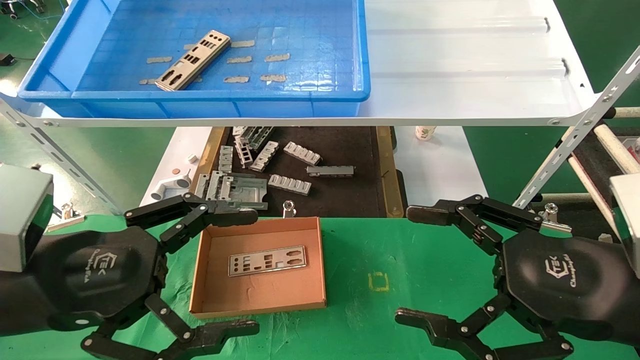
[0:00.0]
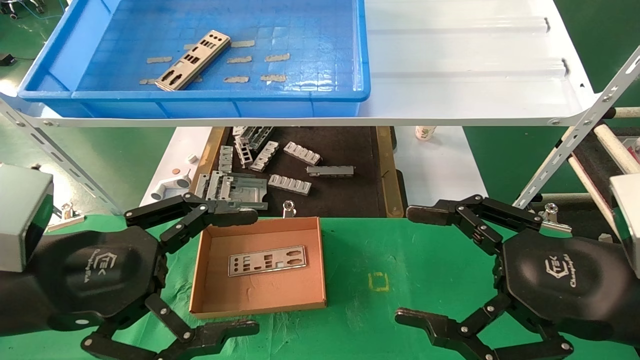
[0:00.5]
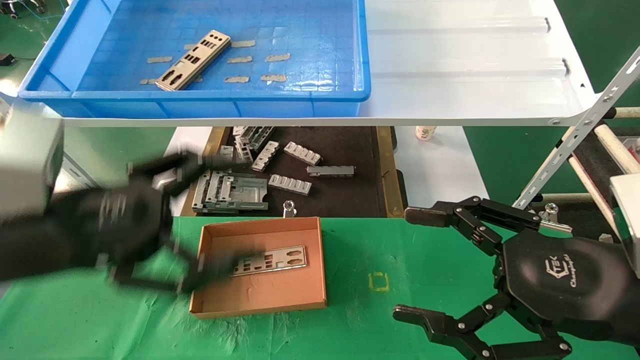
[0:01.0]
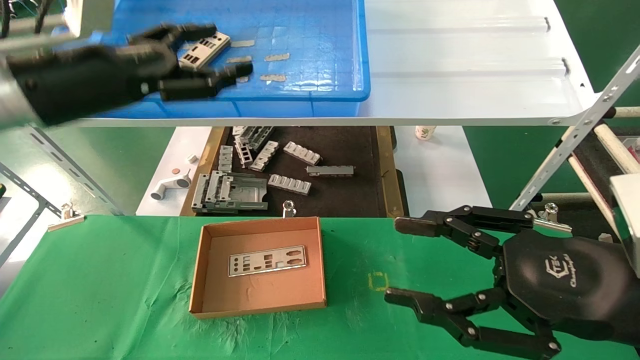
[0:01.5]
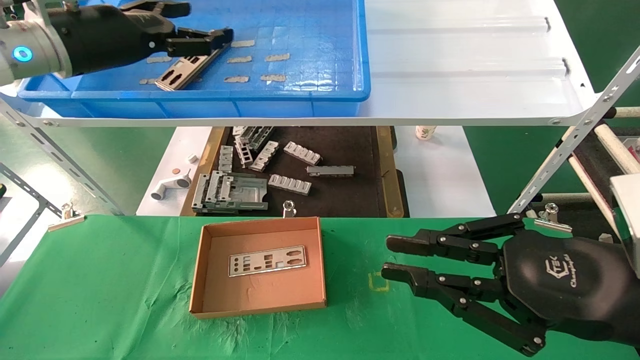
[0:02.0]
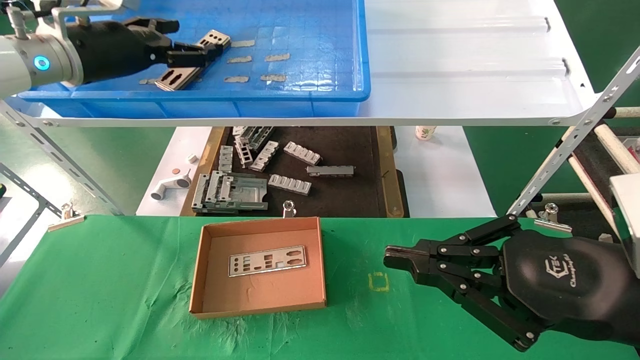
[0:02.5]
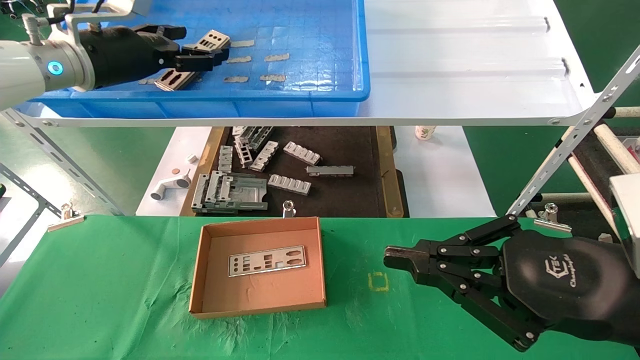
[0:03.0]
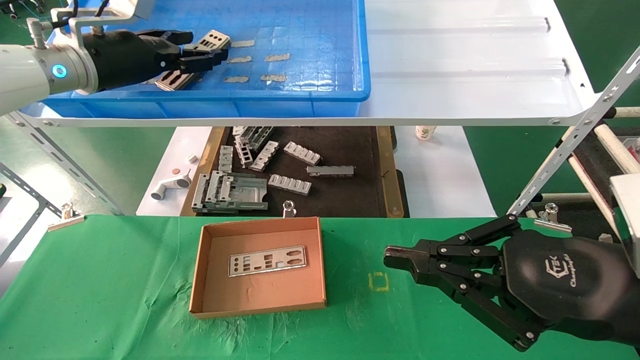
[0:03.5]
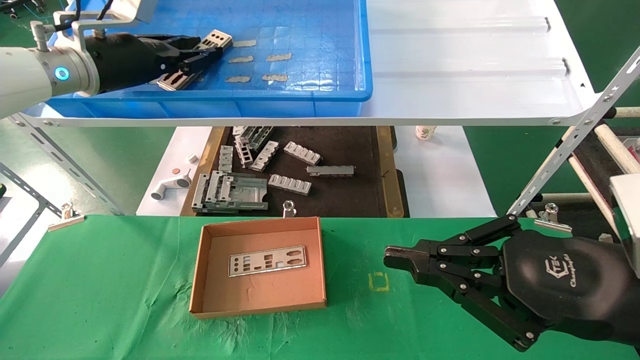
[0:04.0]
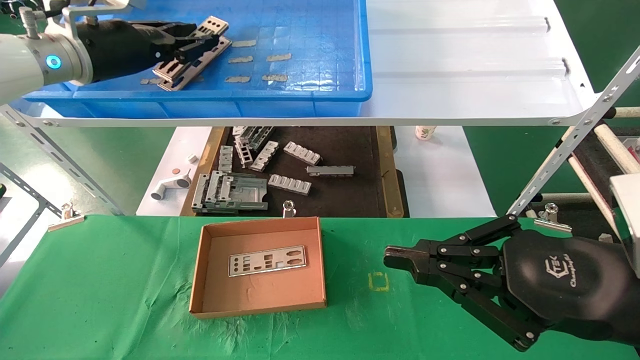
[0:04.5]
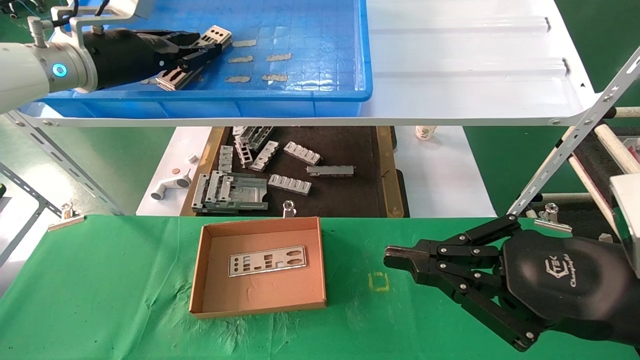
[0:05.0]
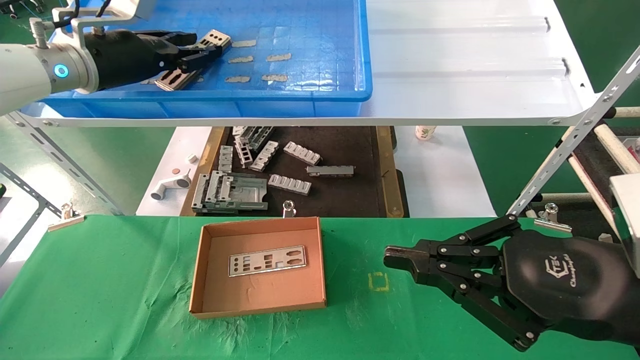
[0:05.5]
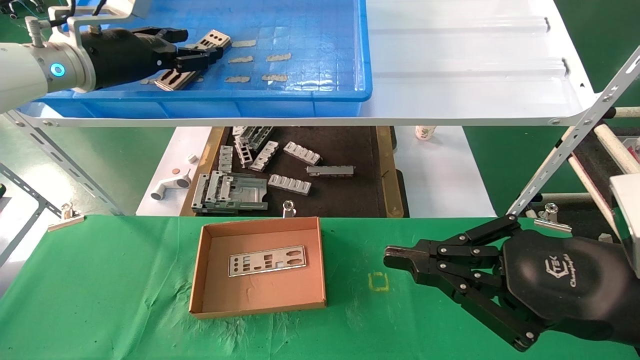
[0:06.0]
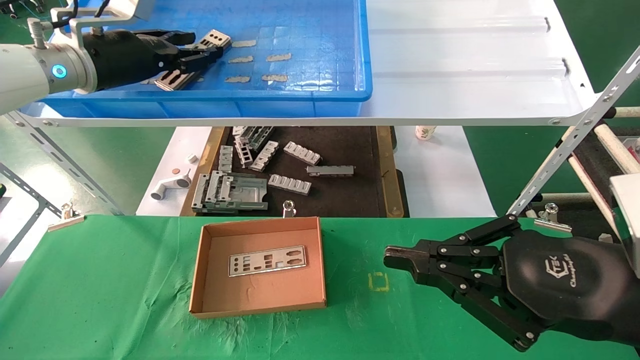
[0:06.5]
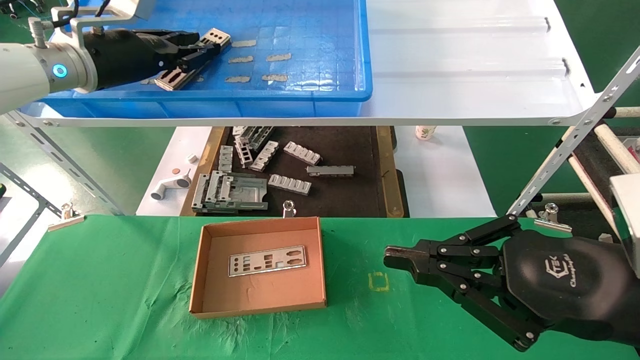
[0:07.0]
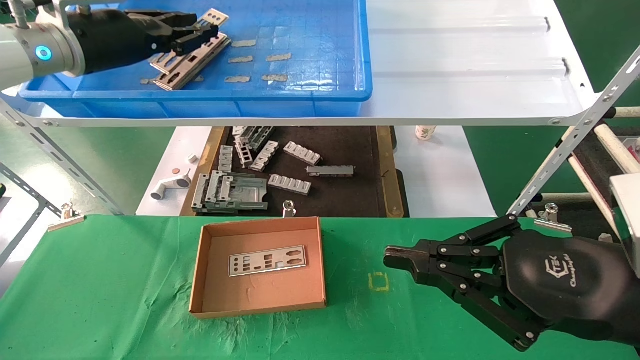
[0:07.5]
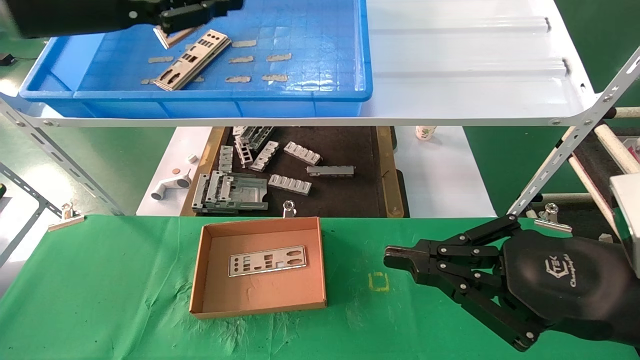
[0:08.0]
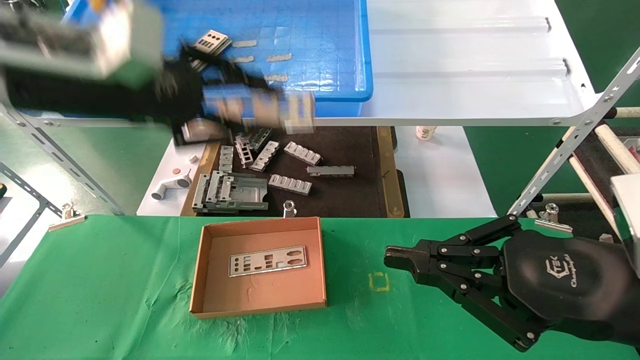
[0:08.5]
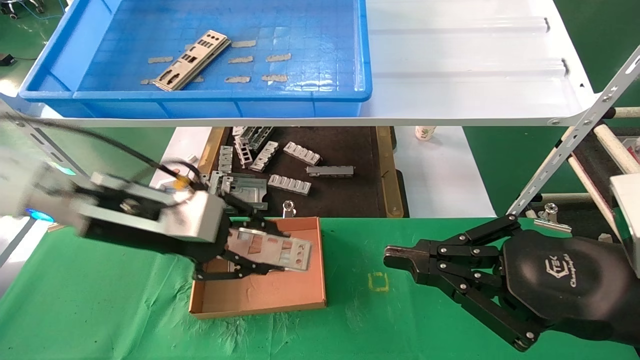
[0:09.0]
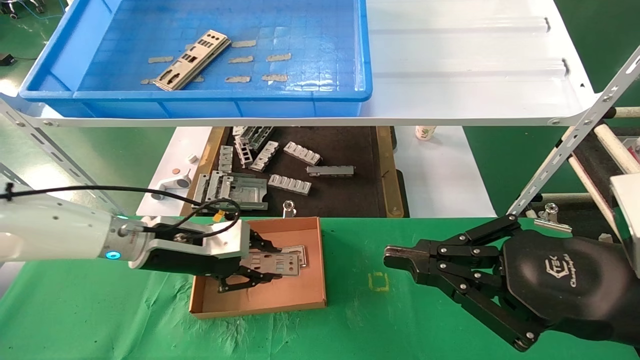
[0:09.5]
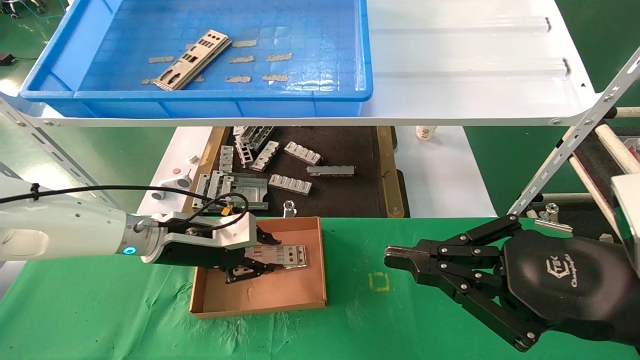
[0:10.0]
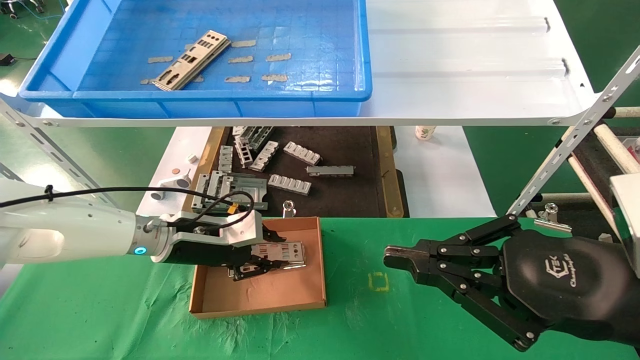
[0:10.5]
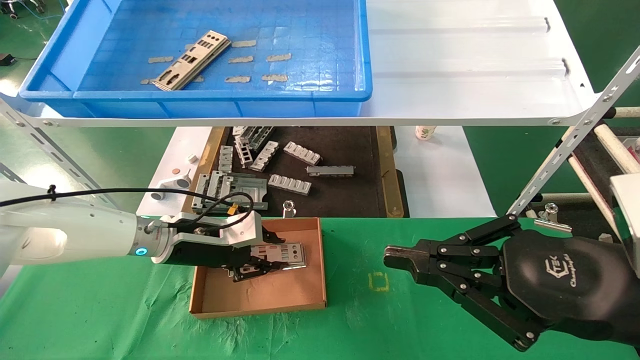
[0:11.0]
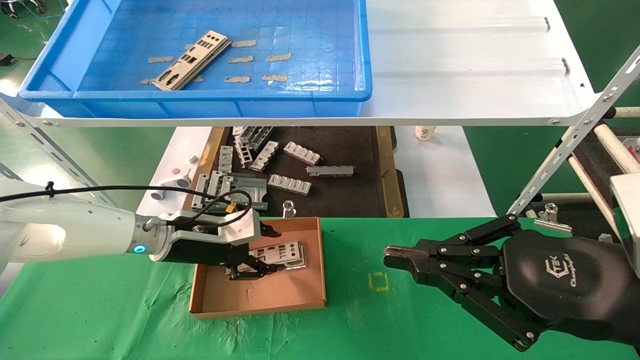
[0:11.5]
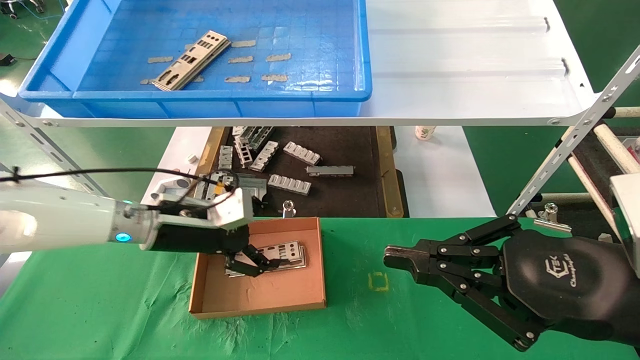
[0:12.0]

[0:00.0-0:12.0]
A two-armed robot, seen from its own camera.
Task of the whole recording: pick up the parts on the tray and put them in the cardboard box.
Step, 0:01.5 to 0:07.0: Pick up the IO bracket from the container box.
Step, 0:07.5 to 0:11.5: Place the IO bracket into the ingredient slot.
0:00.0 to 0:02.0: The right gripper closes up. The left gripper heads forward and upward, covering about 30 cm.
0:02.0 to 0:04.0: The left gripper closes.
0:04.0 to 0:06.0: The two grippers keep their place.
0:06.0 to 0:08.0: The left gripper shifts about 10 cm backward and upward, and closes up.
0:08.0 to 0:10.0: The left gripper travels downward by some 30 cm.
0:10.0 to 0:12.0: The left gripper opens its fingers.

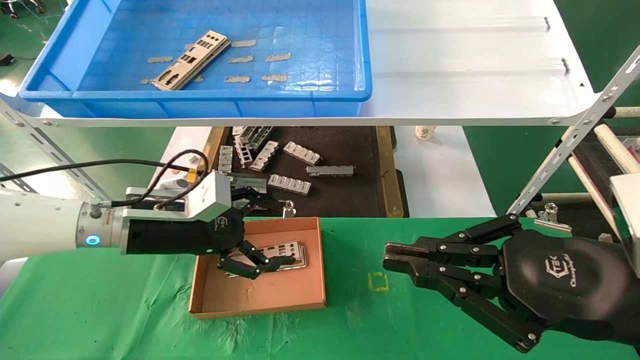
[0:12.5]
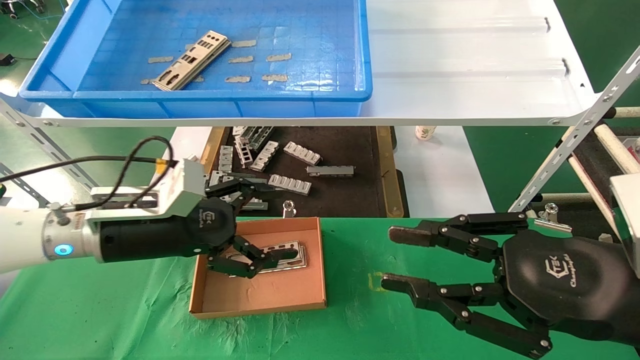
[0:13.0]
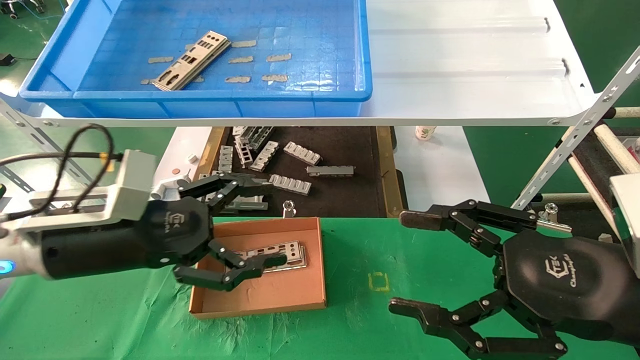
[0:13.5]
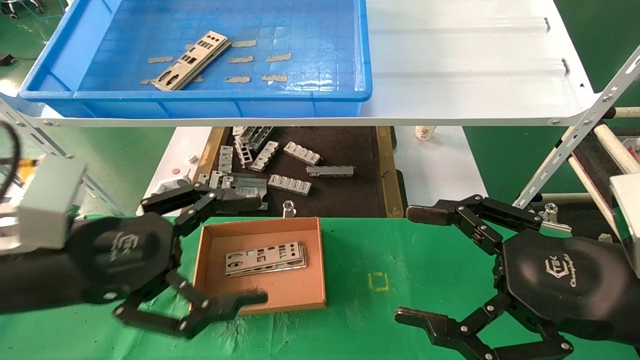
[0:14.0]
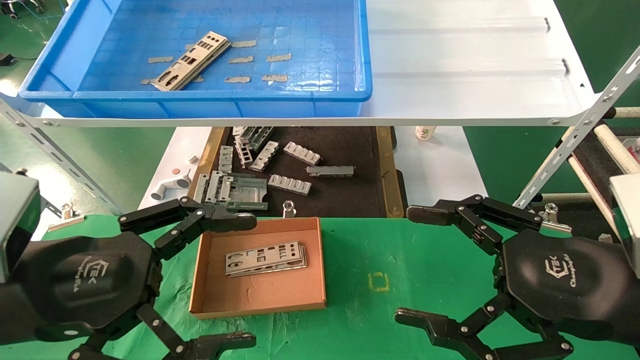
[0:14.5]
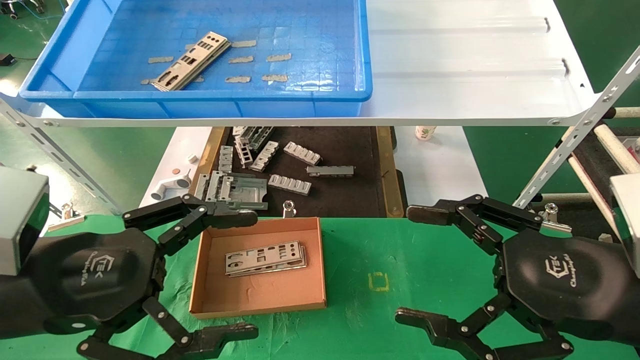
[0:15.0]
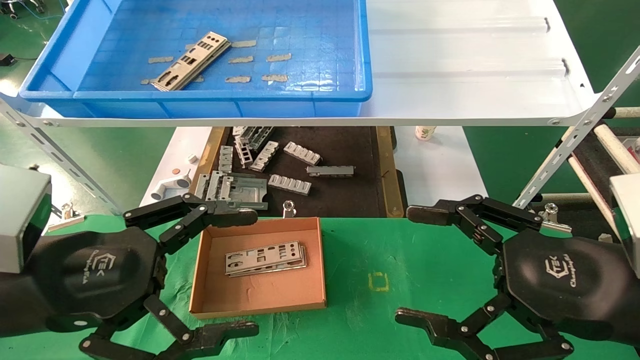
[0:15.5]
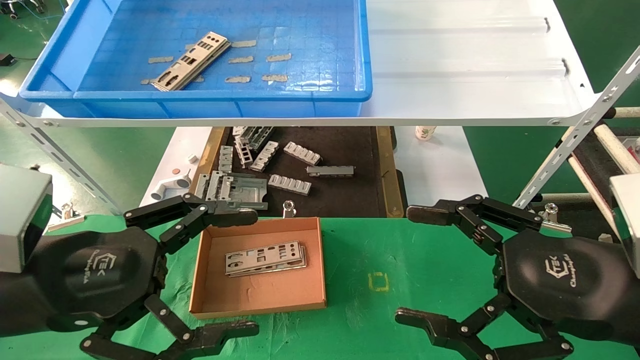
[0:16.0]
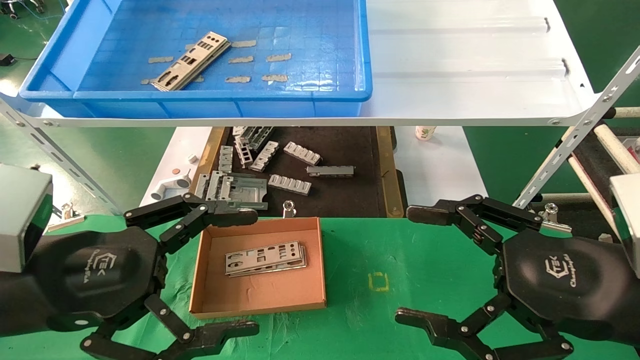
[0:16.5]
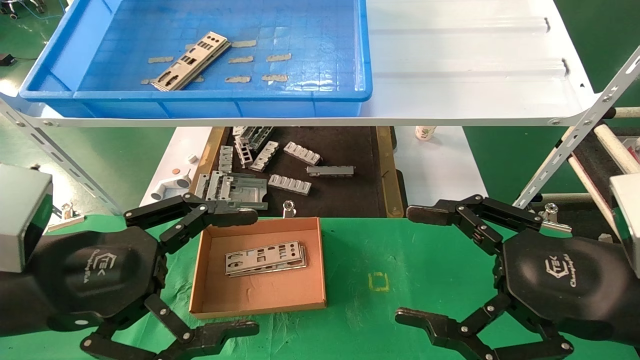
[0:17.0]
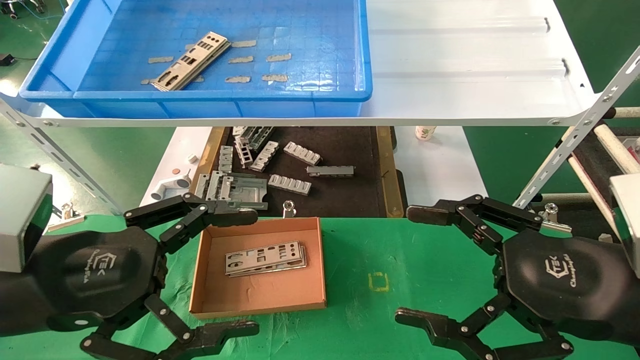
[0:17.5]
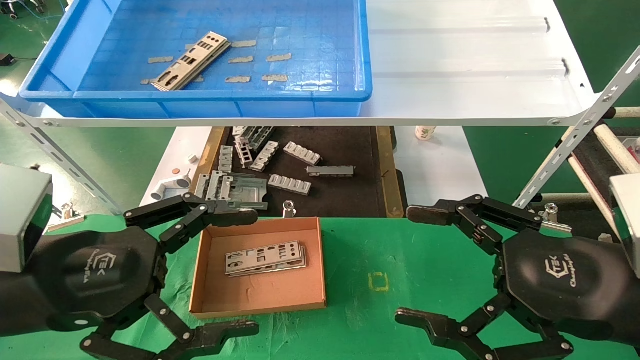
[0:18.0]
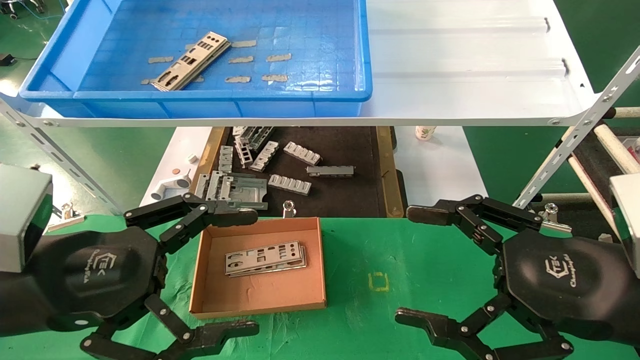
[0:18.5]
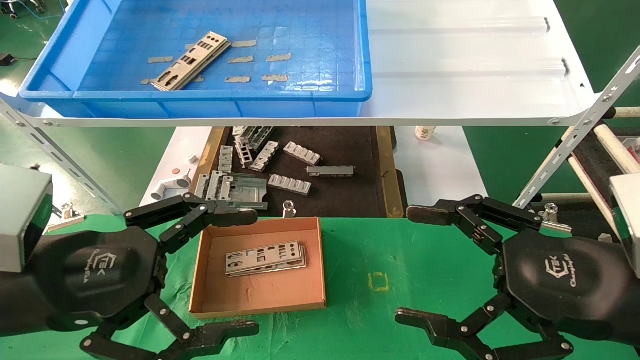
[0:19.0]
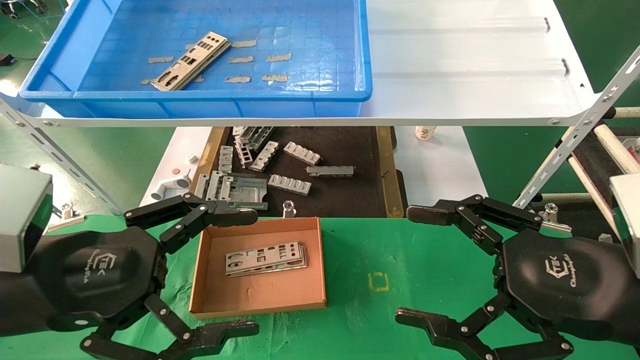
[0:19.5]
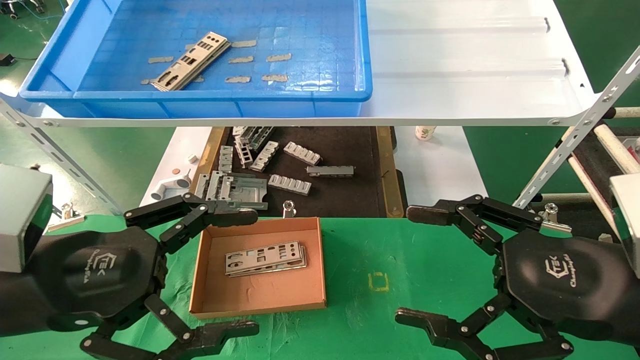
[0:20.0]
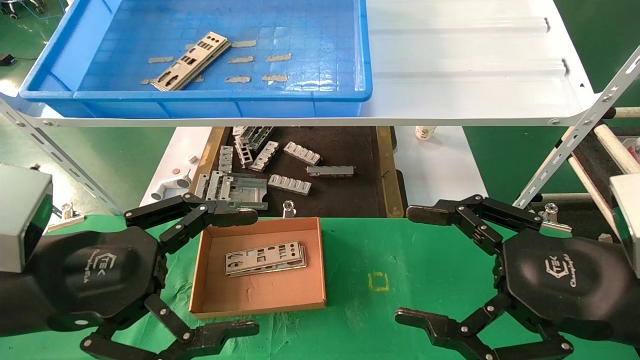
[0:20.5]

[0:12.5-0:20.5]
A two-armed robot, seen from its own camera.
Task of the whole recording: pick up the parts on the tray and put them in the cardboard box.
0:12.5 to 0:14.5: The left gripper shifts roughly 20 cm backward. The right gripper opens its fingers.
0:14.5 to 0:20.5: The two grippers keep their place.
